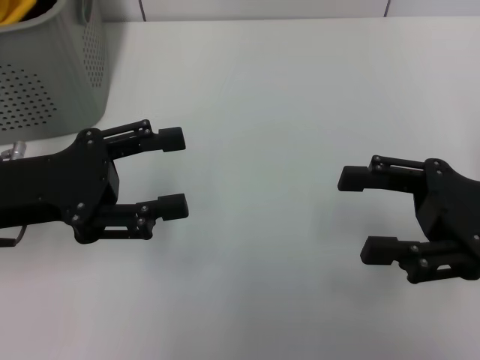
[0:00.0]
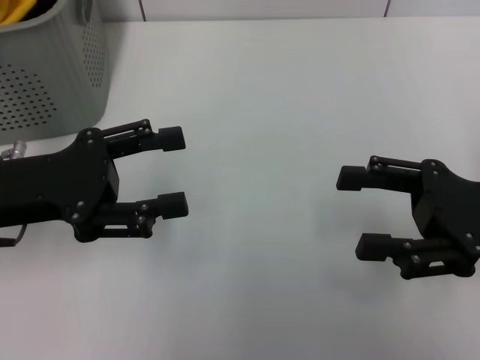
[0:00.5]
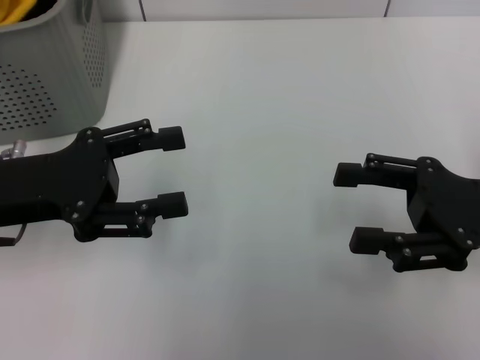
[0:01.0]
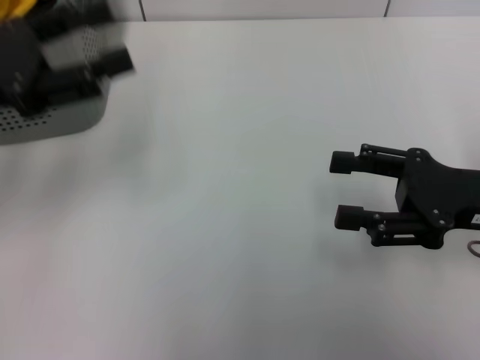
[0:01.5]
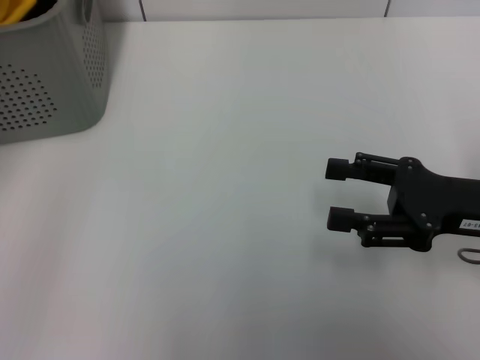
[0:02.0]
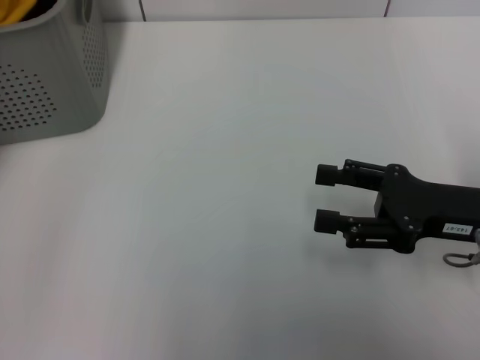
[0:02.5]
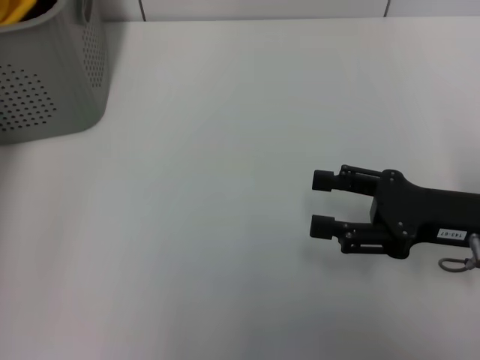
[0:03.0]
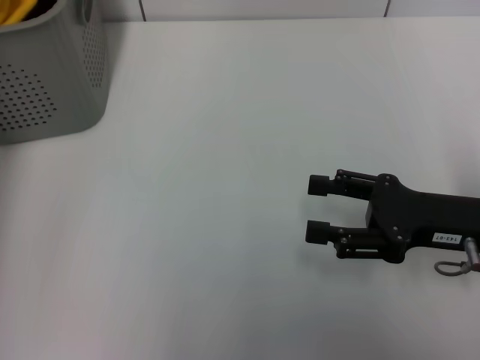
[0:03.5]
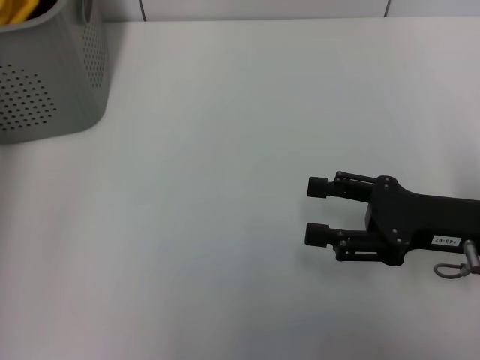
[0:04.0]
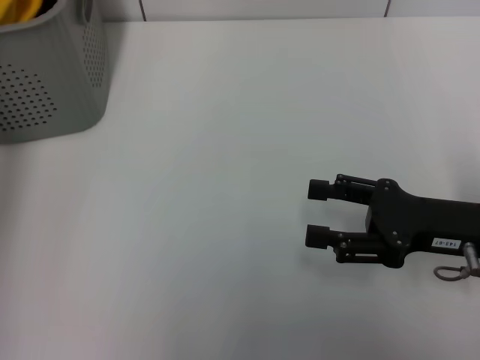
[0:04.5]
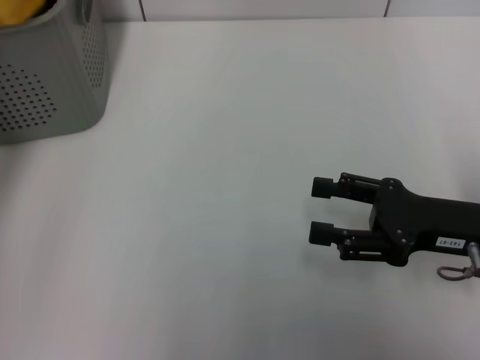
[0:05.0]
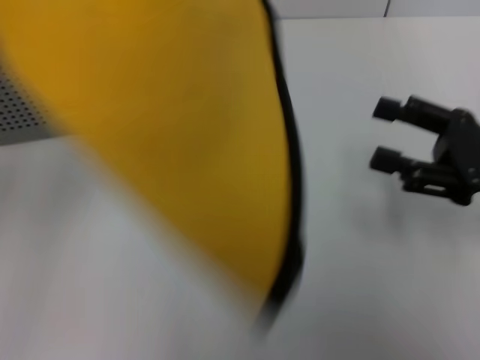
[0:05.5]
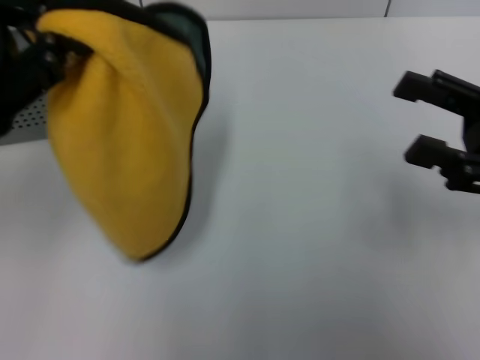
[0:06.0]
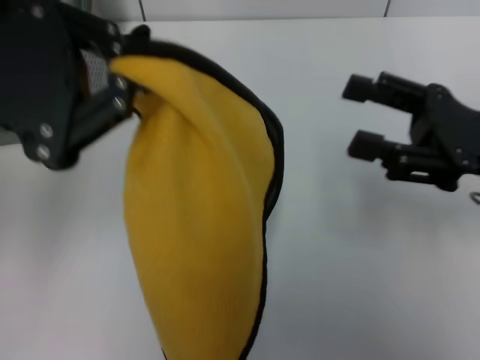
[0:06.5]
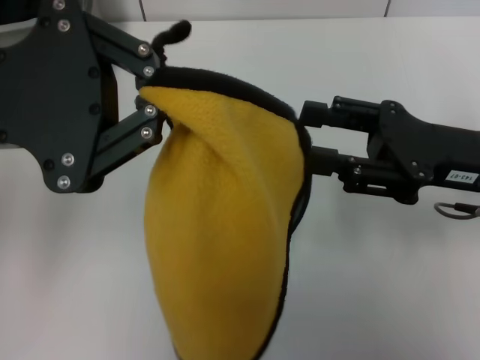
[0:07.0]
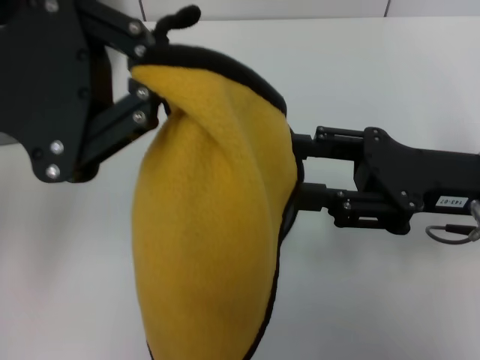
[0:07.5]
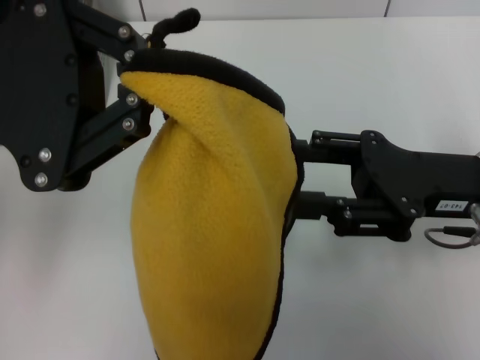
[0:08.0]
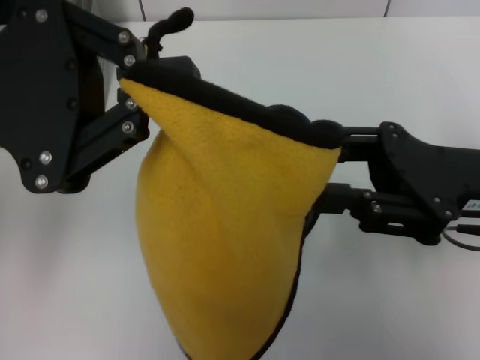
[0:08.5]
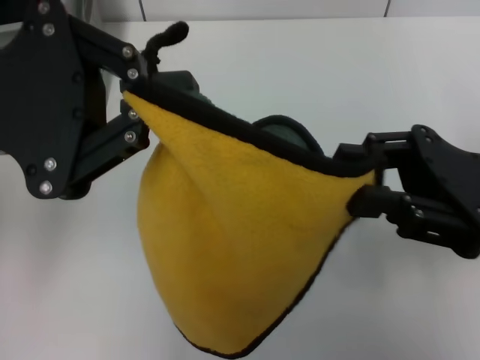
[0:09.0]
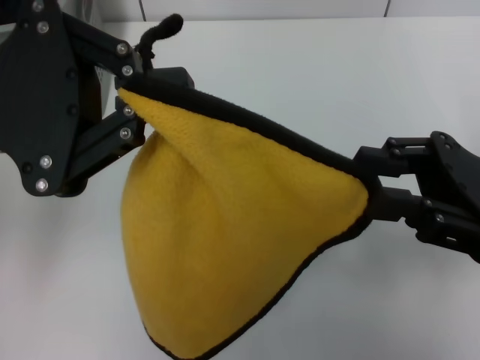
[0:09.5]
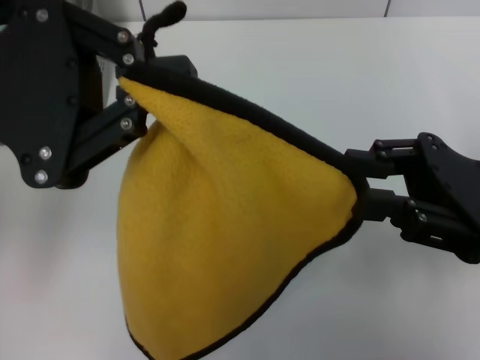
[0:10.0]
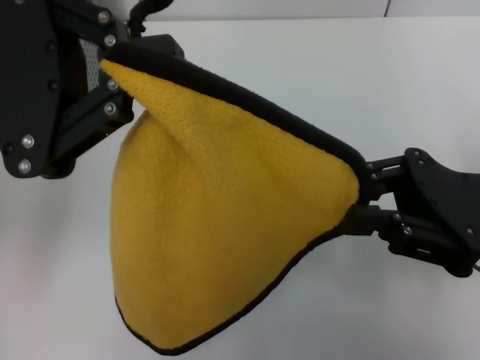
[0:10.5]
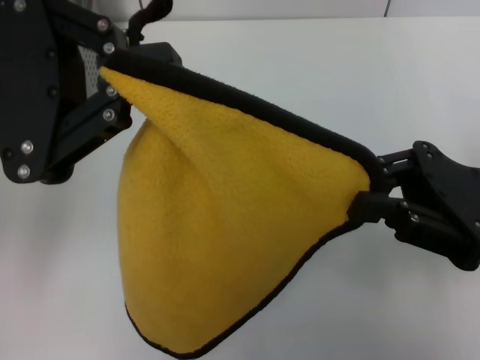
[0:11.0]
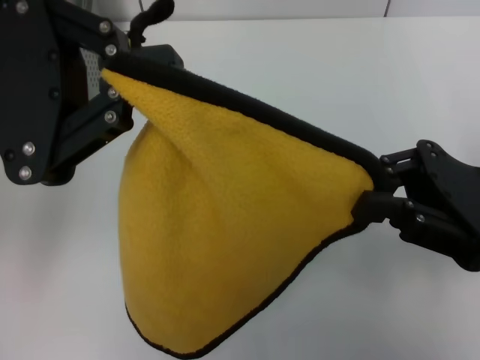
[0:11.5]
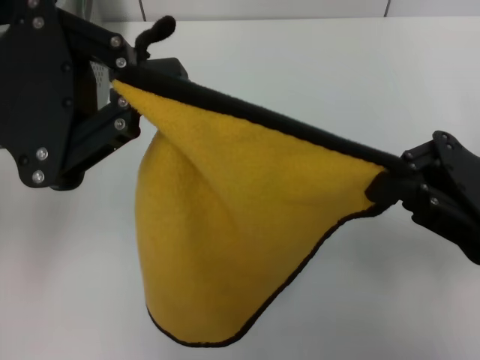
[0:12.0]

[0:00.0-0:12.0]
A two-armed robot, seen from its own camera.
Task of the whole recording: pick up the towel from the storage box and lay it flat on the table.
Step, 0:00.0 to 0:04.0: Pick up a towel with the left gripper.
Step, 0:04.5 to 0:11.5: Spread the towel flat with the left gripper.
0:00.0 to 0:02.0: The left gripper shifts about 15 cm upward and to the left.
0:02.0 to 0:04.0: The left gripper shifts some 5 cm forward.
0:04.0 to 0:06.0: The left gripper goes roughly 10 cm backward, and closes, while the right gripper shifts approximately 5 cm upward.
0:06.0 to 0:08.0: The right gripper moves to the left, about 5 cm.
0:08.0 to 0:10.0: The grippers move only a little.
0:10.0 to 0:12.0: The two grippers keep their place.

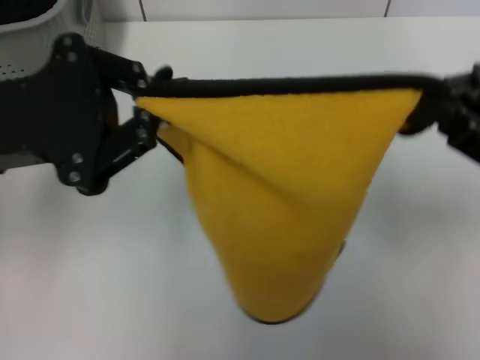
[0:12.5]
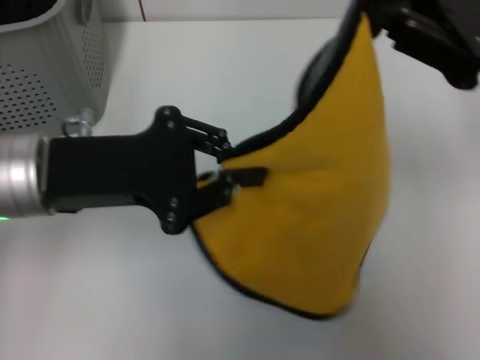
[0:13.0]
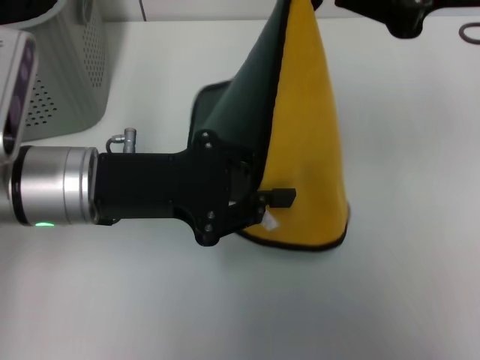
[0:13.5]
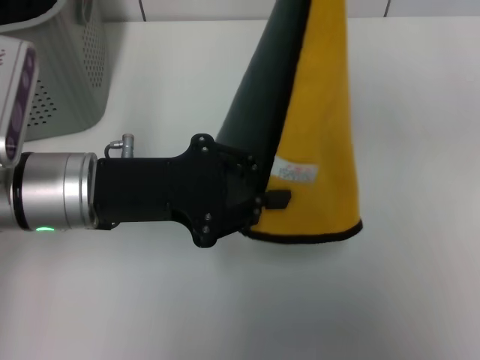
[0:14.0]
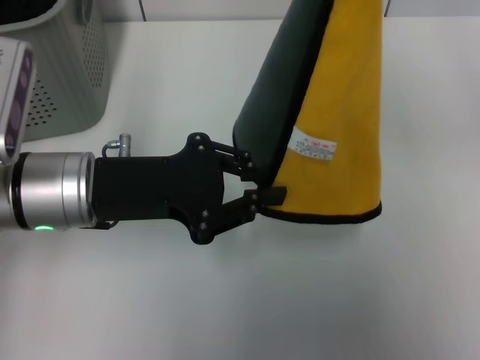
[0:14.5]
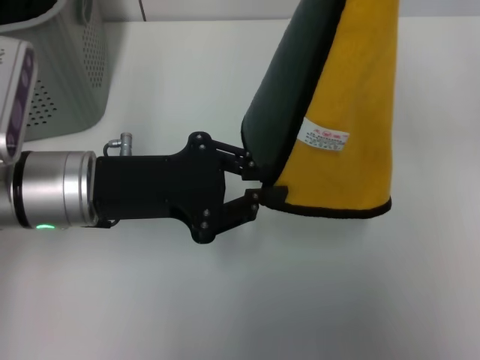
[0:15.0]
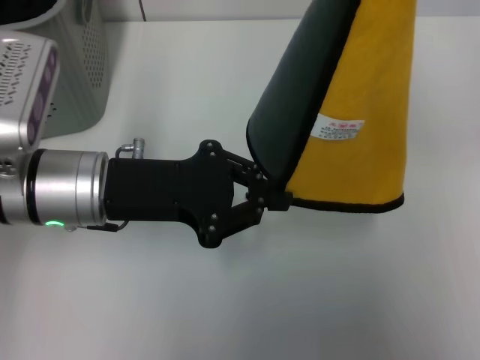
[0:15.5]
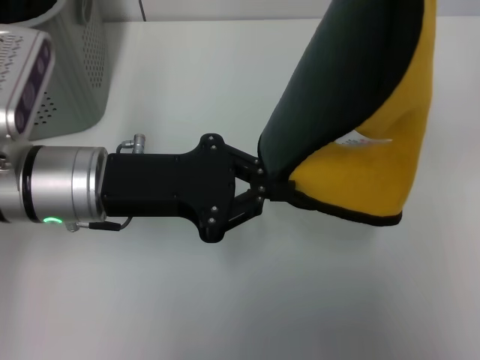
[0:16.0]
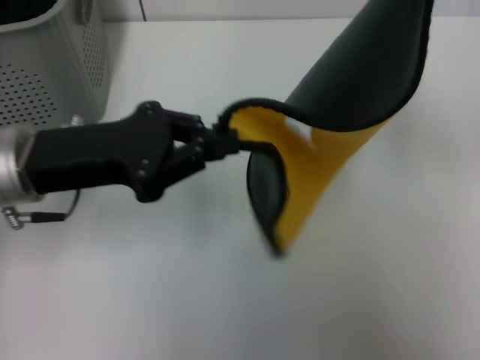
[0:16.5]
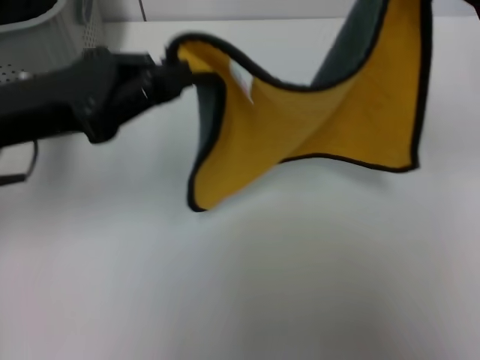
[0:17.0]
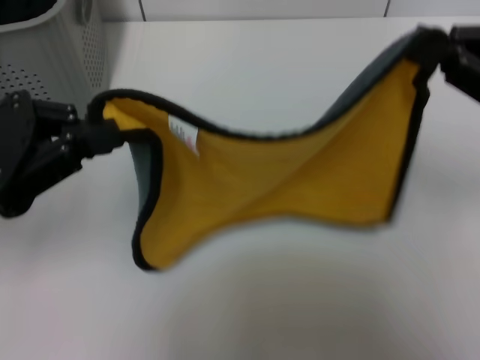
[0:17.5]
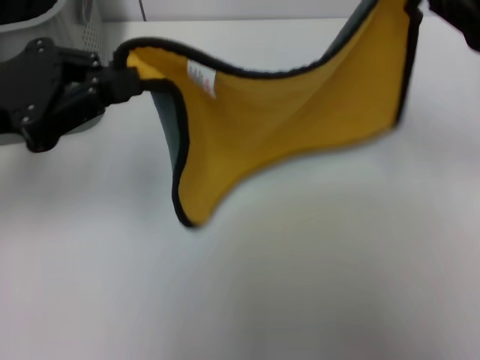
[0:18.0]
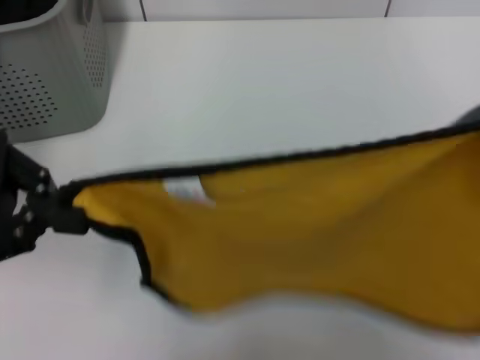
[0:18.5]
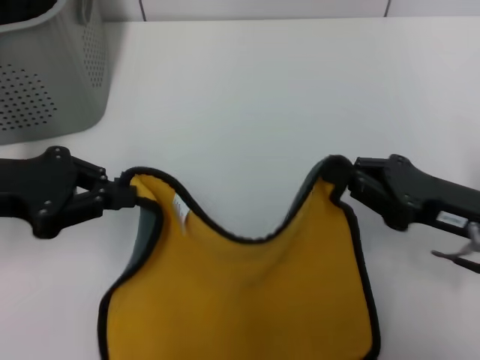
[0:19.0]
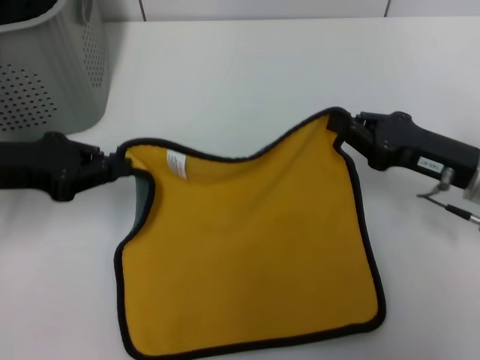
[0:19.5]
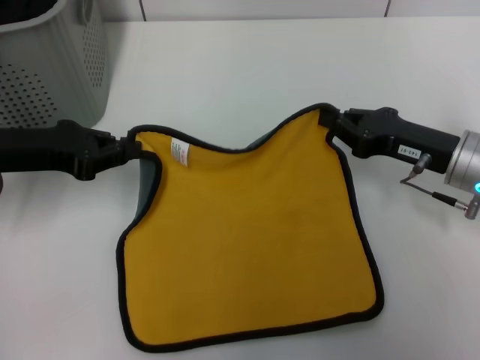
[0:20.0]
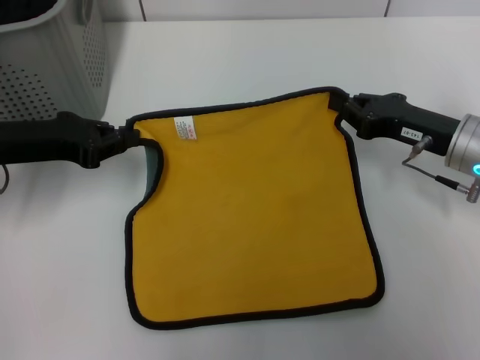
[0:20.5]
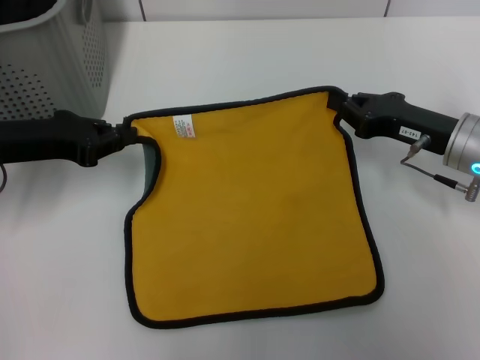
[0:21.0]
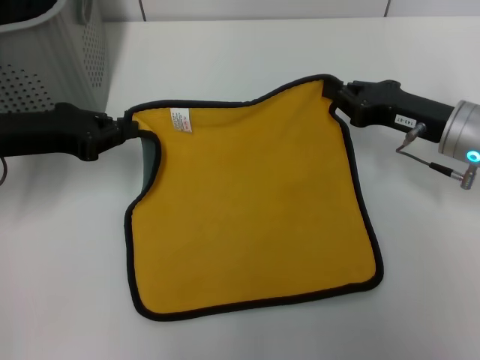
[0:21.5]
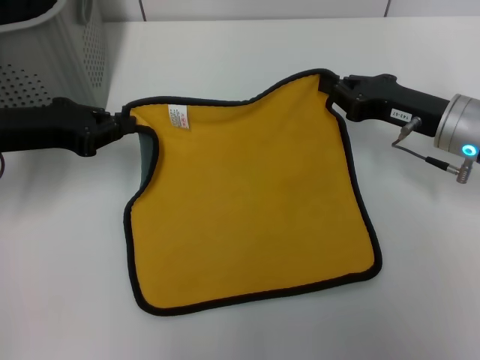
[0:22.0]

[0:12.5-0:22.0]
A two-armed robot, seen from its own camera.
Task of the whole recording: pick up the towel from the storage box and lay it flat on the table.
0:12.5 to 0:14.5: The left gripper is displaced downward and to the right by approximately 10 cm. Meanwhile the right gripper shifts some 15 cm upward.
0:14.5 to 0:16.5: The right gripper shifts about 5 cm downward.
0:16.5 to 0:18.0: The left gripper travels to the left by about 5 cm; the right gripper ends up about 5 cm from where it was.
0:18.0 to 0:20.0: The left gripper is displaced downward by roughly 5 cm. The right gripper travels downward by about 15 cm.

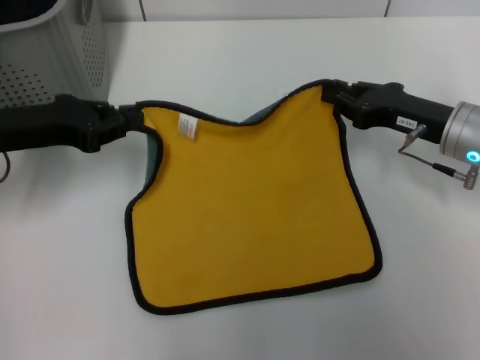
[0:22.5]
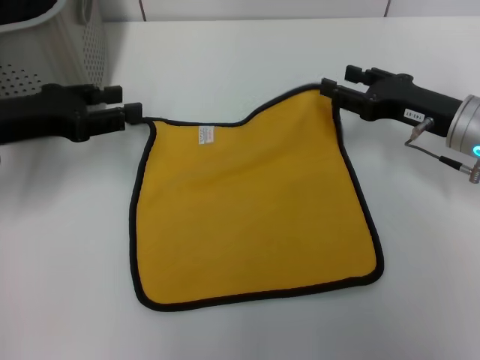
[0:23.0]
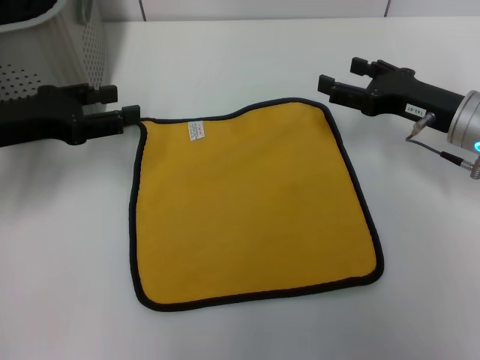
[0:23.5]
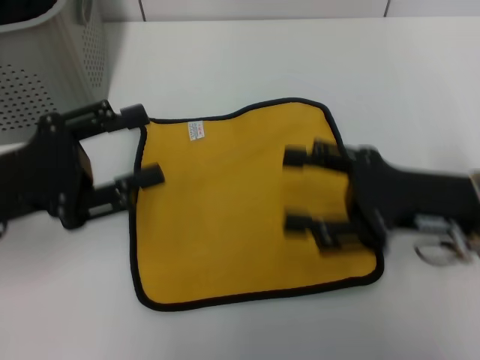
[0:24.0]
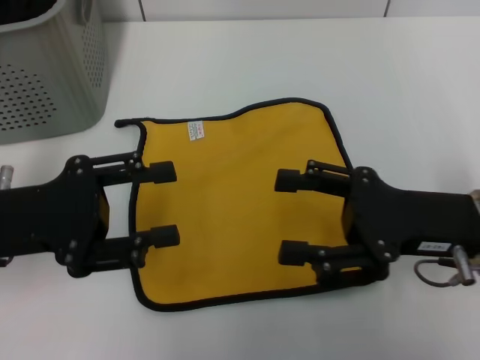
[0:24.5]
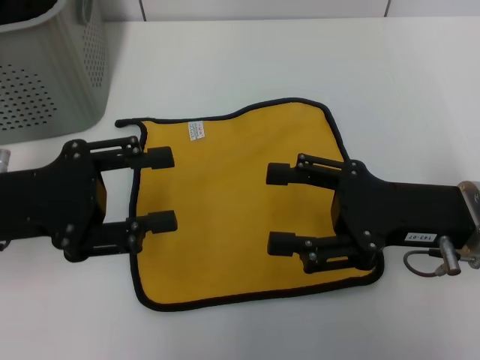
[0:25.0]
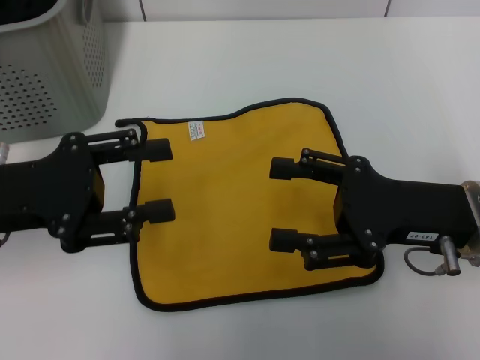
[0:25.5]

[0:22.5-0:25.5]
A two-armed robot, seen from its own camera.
Task of the whole recording: pick up the towel from the storage box and lay it flat on the table.
0:22.5 to 0:24.0: The two grippers go some 10 cm backward. The right gripper opens. Meanwhile the left gripper opens its fingers.
0:24.0 to 0:25.5: The grippers move only a little.

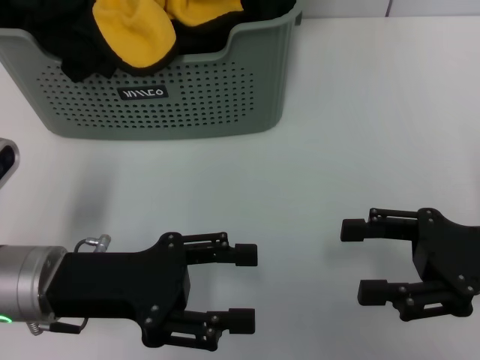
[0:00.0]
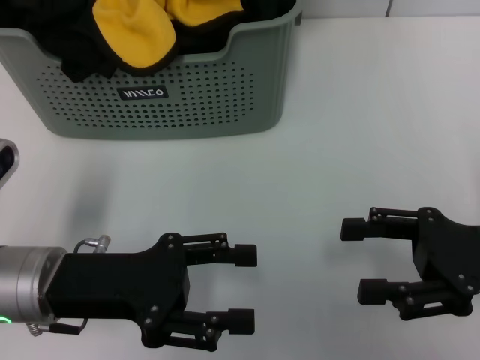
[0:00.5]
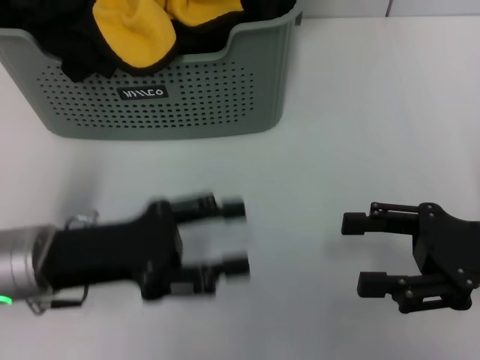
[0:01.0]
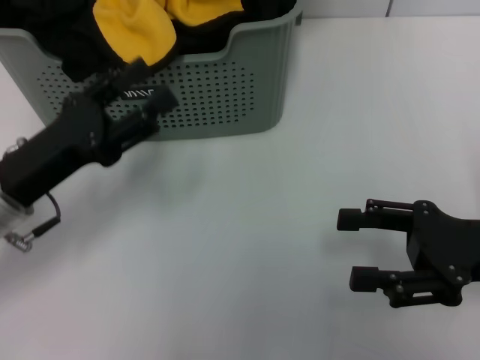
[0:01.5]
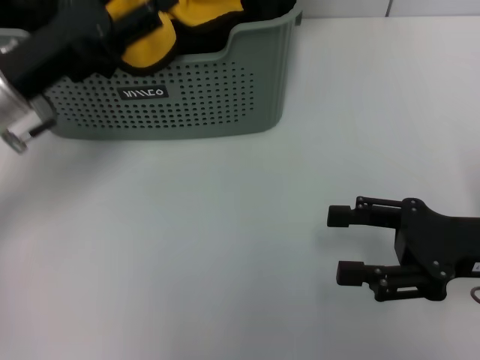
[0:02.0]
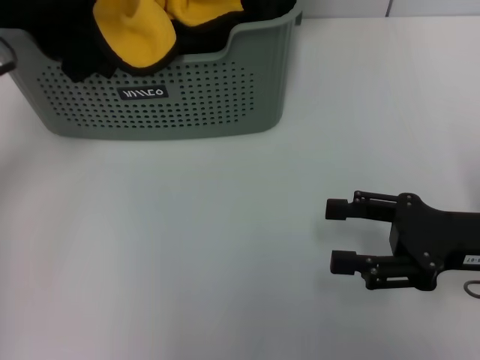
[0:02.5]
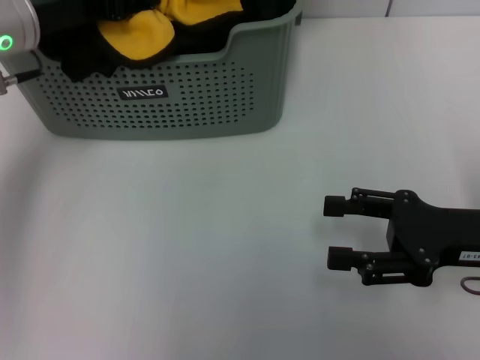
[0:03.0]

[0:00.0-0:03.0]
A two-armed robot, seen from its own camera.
Task of the whole recording: pick up the towel from the storage box and lay it flat on the table.
0:01.5 to 0:03.0: The left gripper goes some 15 cm forward and upward.
